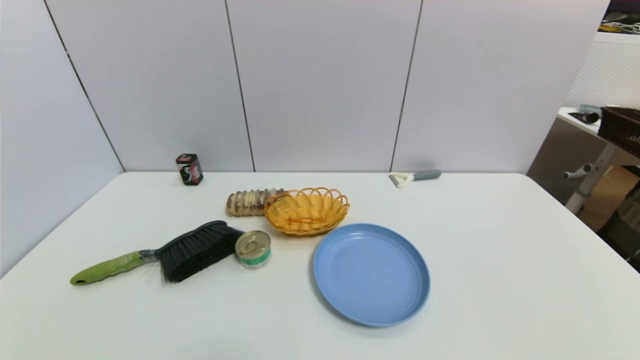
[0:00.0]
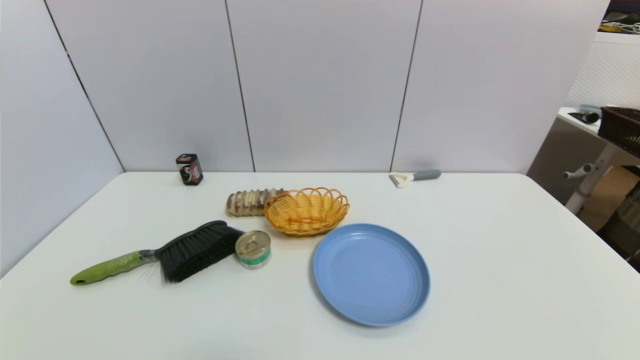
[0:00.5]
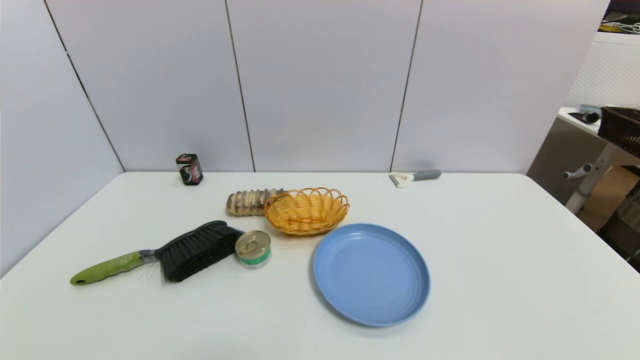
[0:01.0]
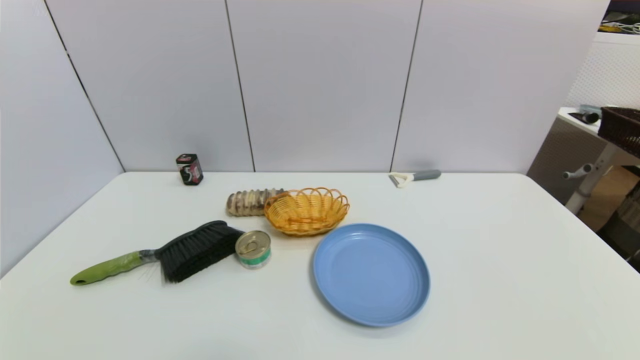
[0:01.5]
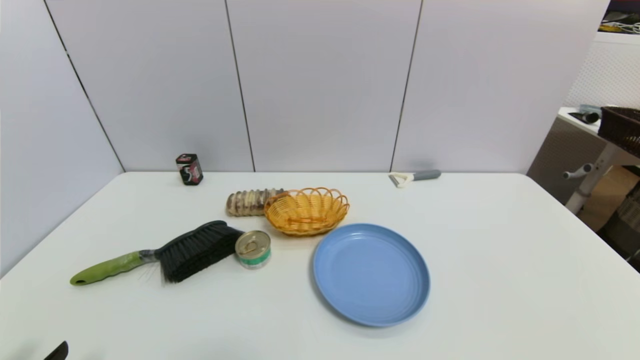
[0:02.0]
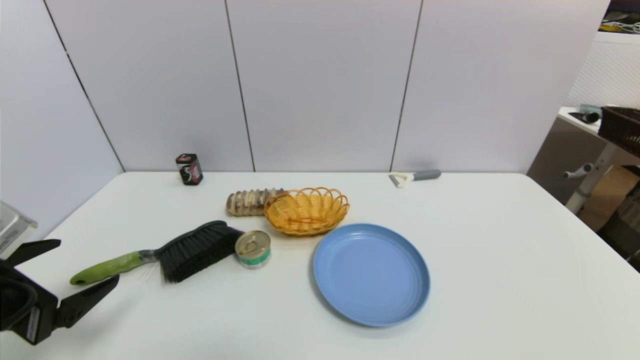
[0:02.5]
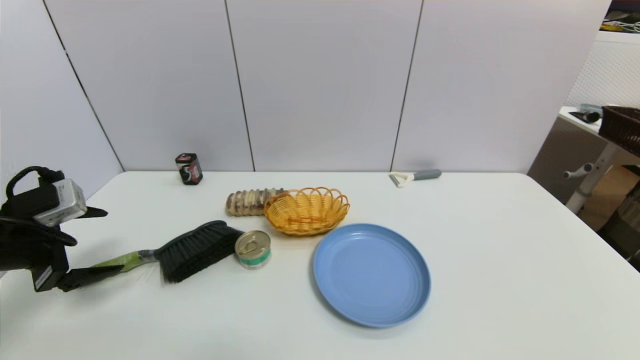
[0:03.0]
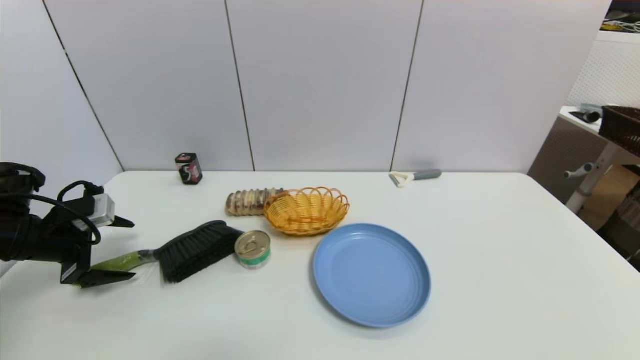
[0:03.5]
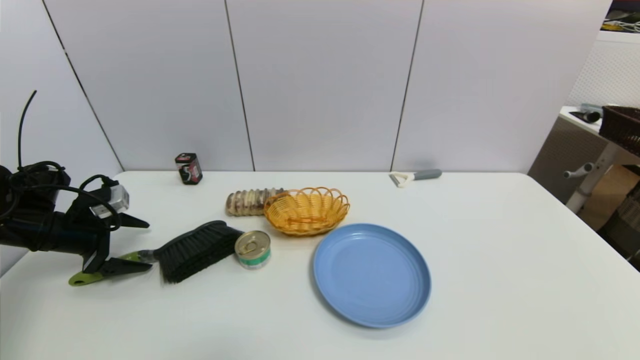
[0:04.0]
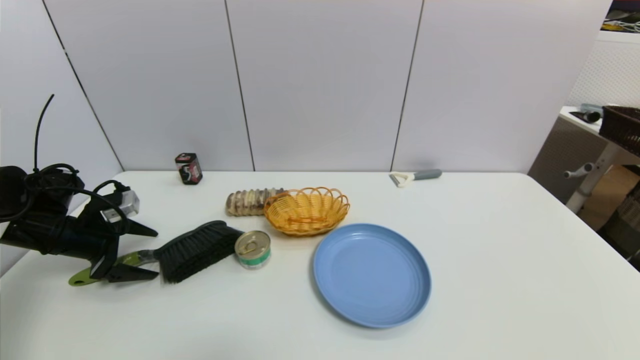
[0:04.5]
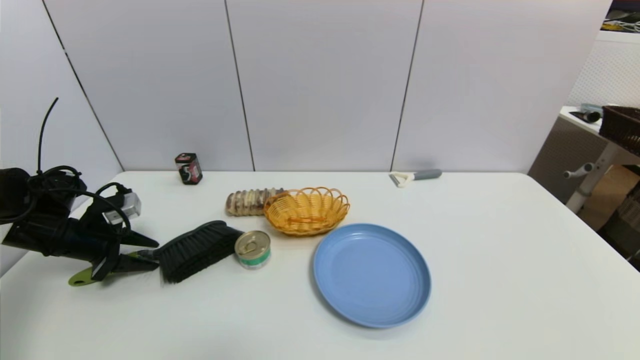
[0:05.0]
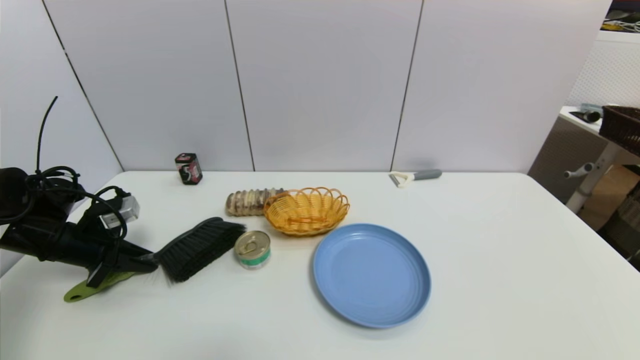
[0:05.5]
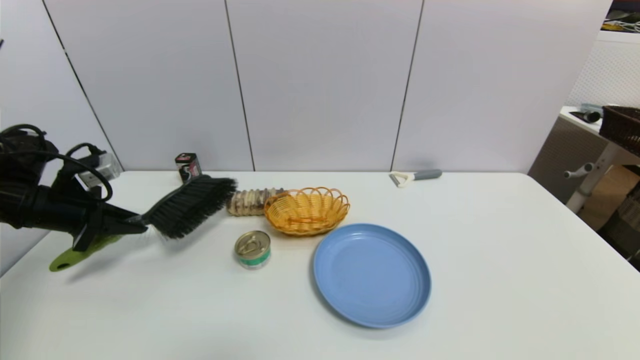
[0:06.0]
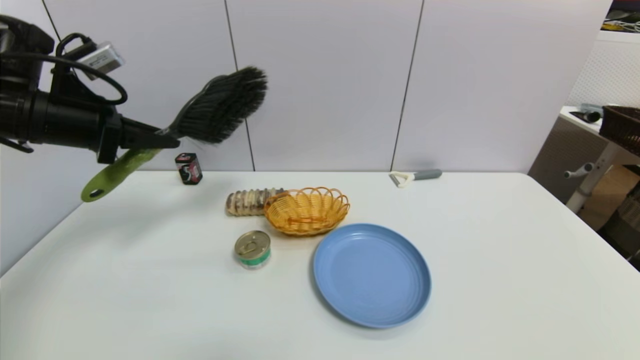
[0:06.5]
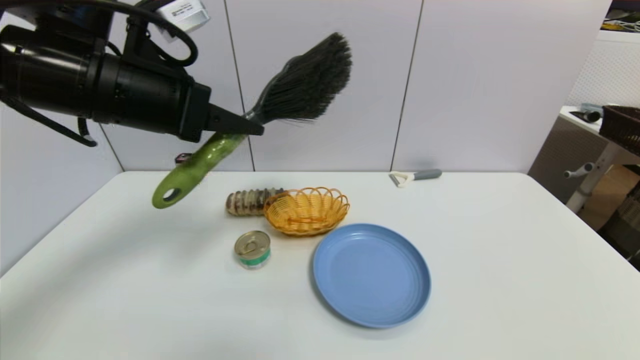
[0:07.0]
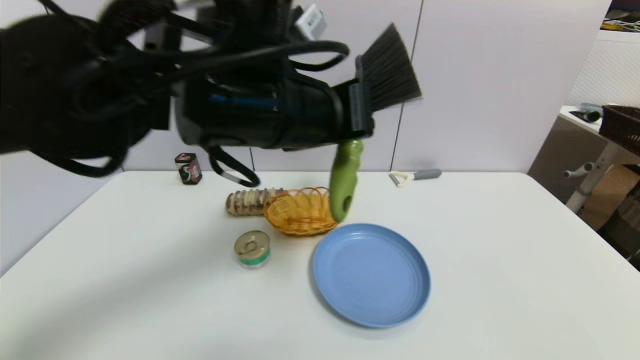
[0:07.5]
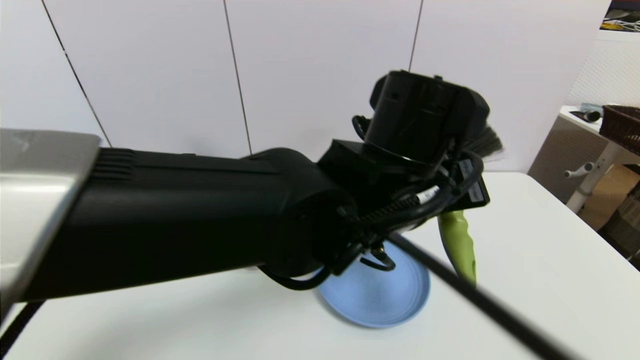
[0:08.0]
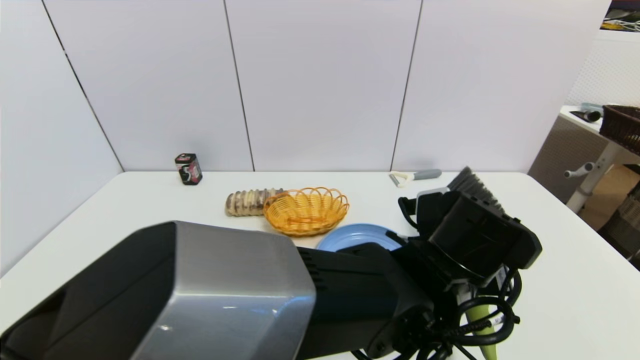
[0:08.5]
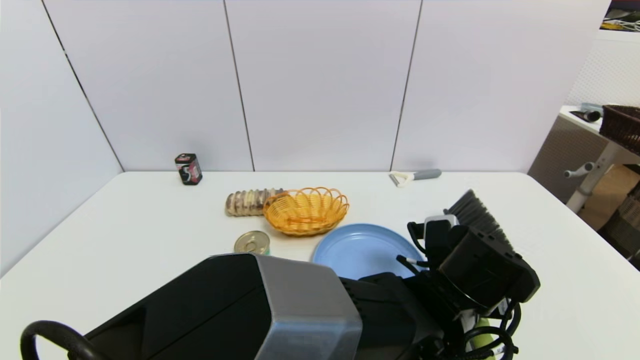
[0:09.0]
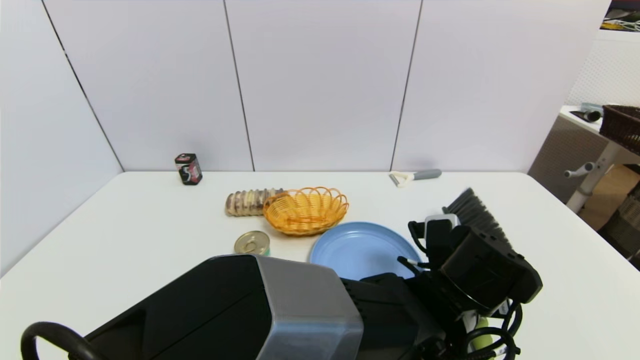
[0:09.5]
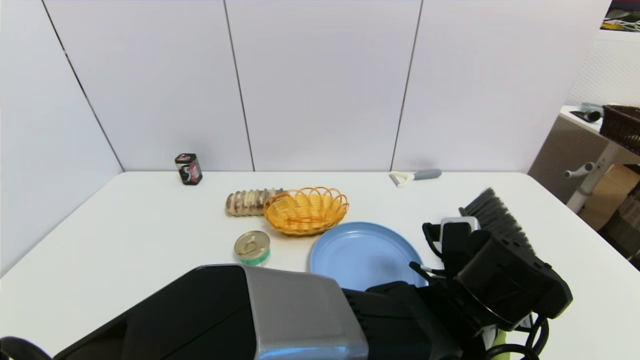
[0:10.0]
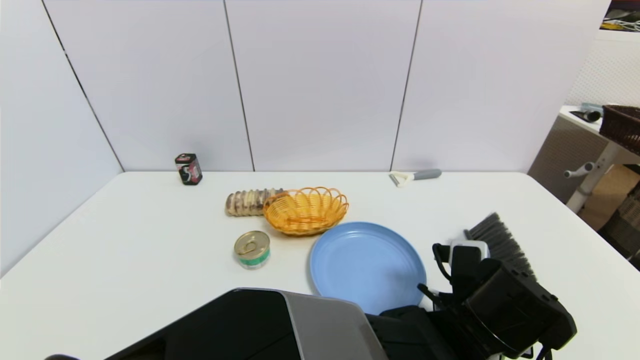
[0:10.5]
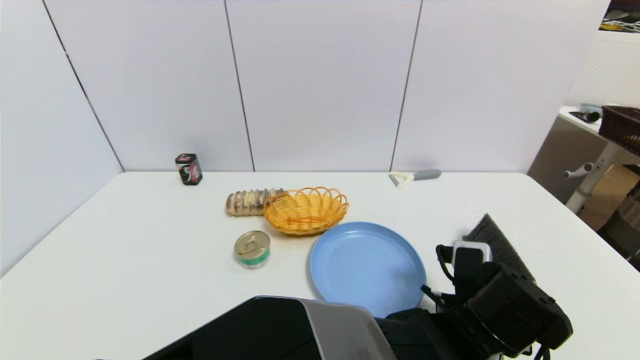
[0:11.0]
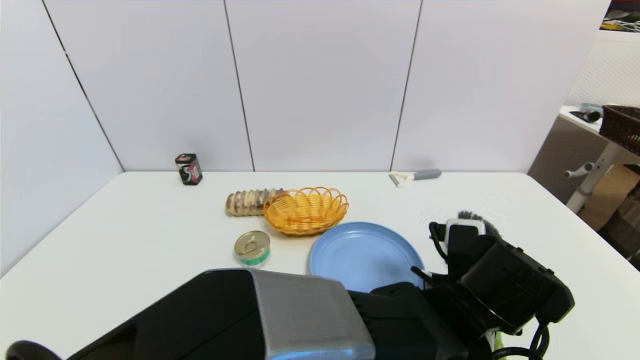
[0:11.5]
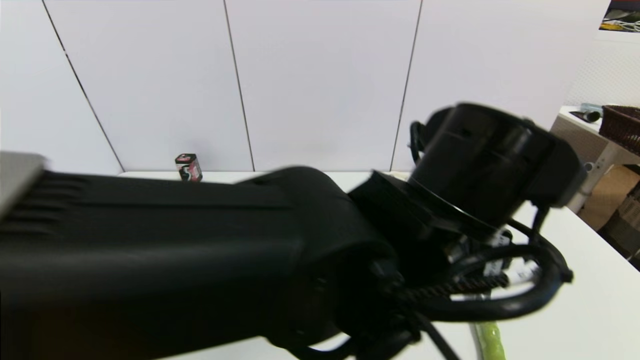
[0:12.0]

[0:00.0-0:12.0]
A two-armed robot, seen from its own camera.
Task of the whole recording: put the brush in the designated position.
0:02.0 to 0:04.0: The left gripper is displaced forward by about 30 cm.
0:04.0 to 0:06.0: The left gripper goes some 5 cm upward, and closes.
0:06.0 to 0:08.0: The left gripper moves to the right, approximately 50 cm.
0:08.0 to 0:10.0: The left gripper shifts approximately 15 cm downward and to the right.
0:10.0 to 0:12.0: The left gripper is displaced upward and to the left by roughly 15 cm, and opens.

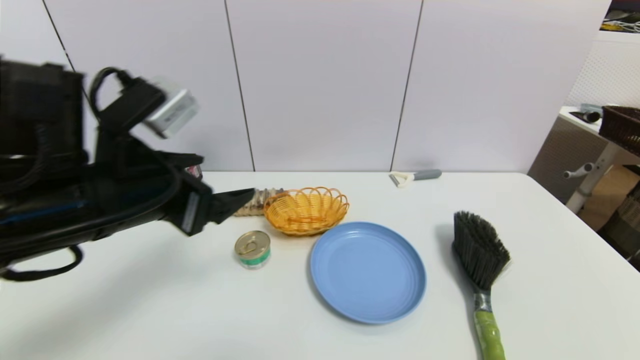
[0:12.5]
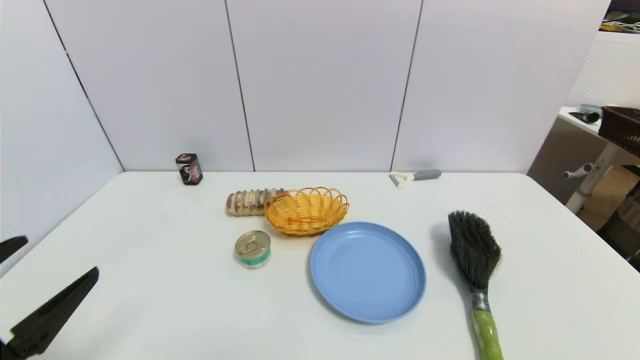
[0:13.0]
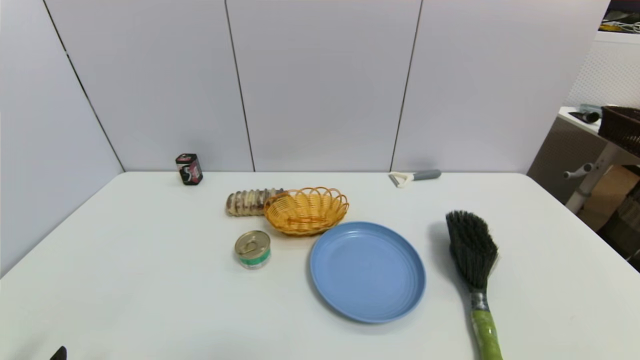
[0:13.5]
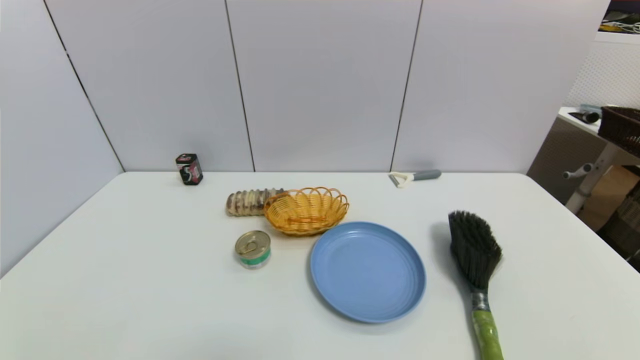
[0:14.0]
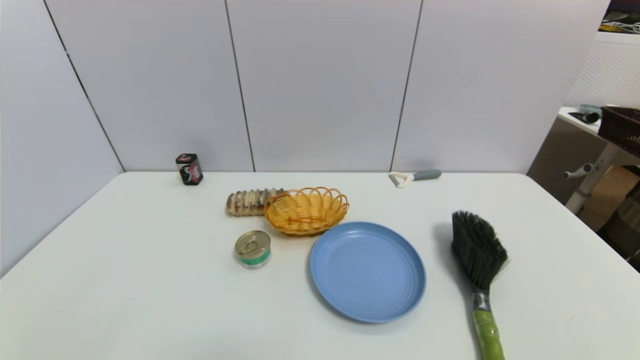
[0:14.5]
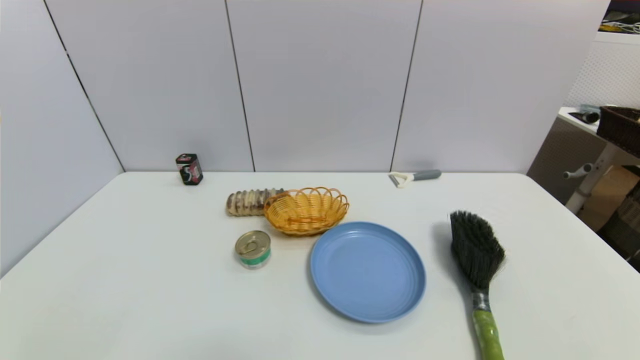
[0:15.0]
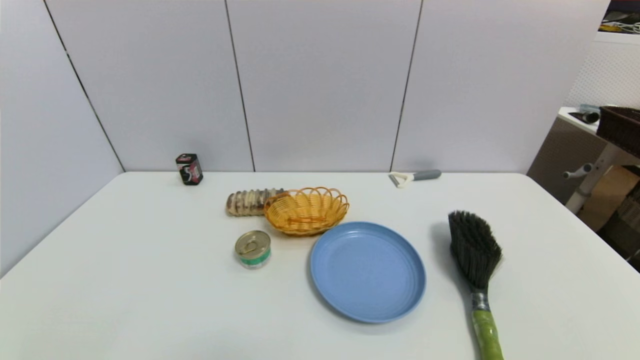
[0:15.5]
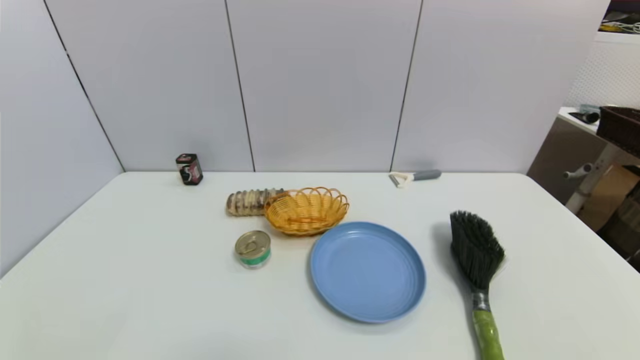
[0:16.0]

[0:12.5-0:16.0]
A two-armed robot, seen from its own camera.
Task of the whole recording: put the brush in the designated position.
0:12.5 to 0:14.5: The left gripper heads backward, downward and to the left, covering some 30 cm.
0:14.5 to 0:16.0: Neither gripper changes place.
